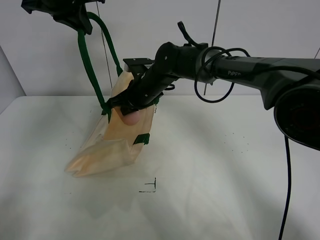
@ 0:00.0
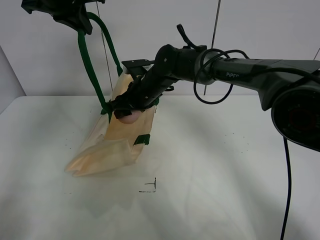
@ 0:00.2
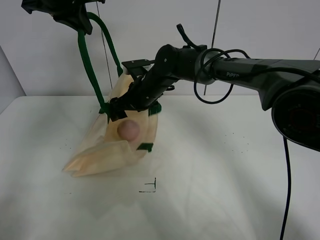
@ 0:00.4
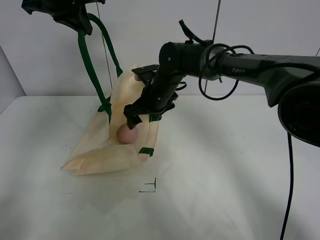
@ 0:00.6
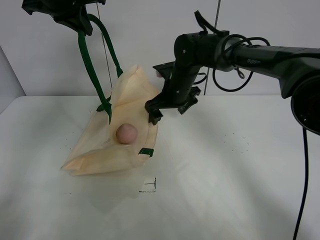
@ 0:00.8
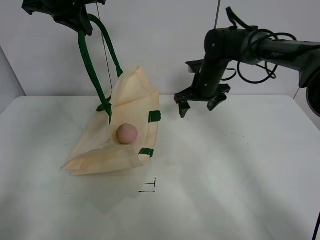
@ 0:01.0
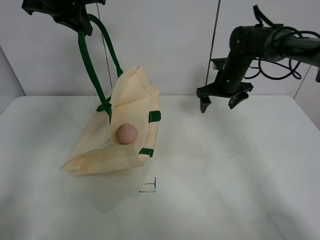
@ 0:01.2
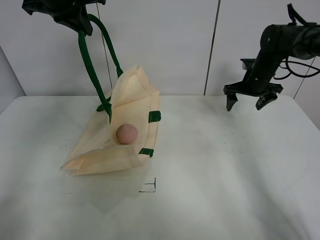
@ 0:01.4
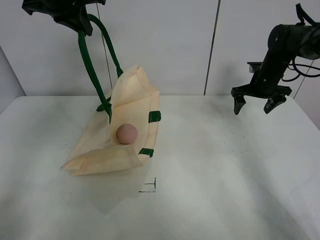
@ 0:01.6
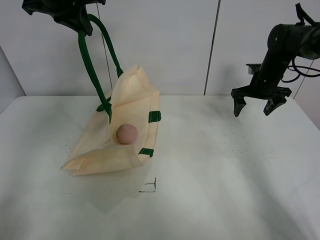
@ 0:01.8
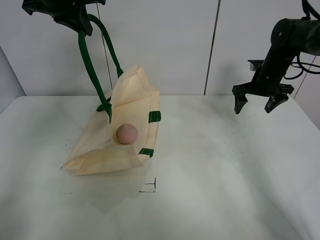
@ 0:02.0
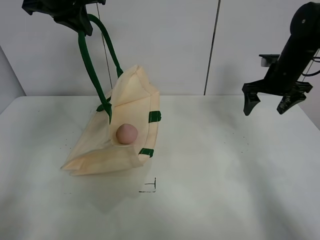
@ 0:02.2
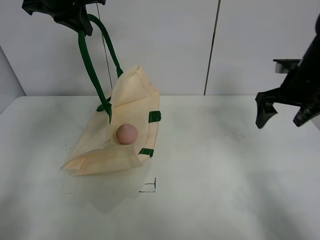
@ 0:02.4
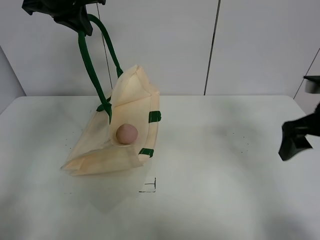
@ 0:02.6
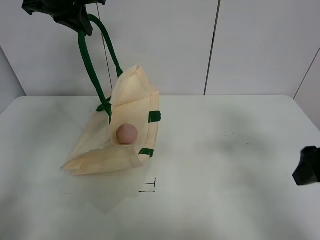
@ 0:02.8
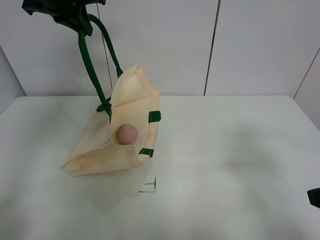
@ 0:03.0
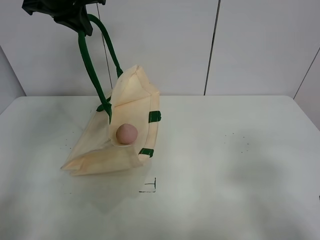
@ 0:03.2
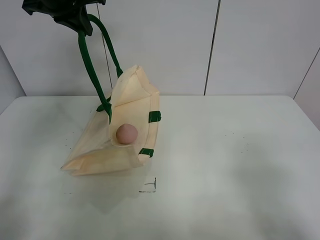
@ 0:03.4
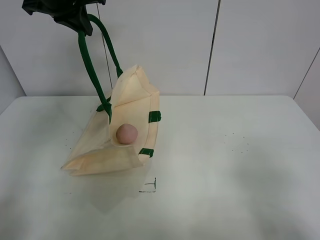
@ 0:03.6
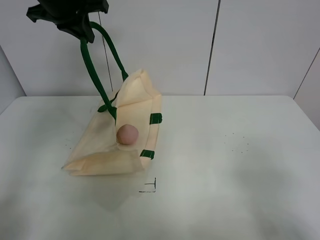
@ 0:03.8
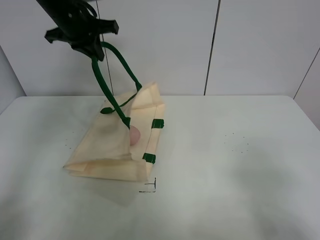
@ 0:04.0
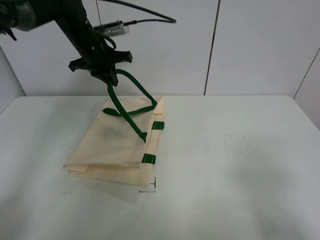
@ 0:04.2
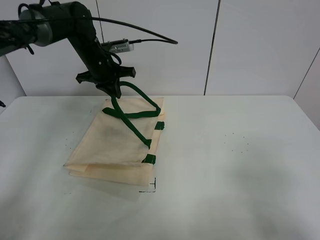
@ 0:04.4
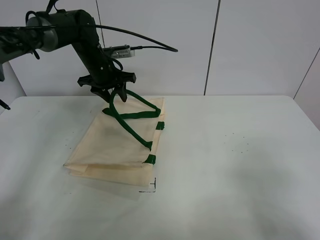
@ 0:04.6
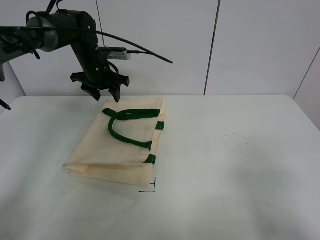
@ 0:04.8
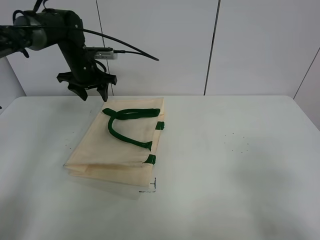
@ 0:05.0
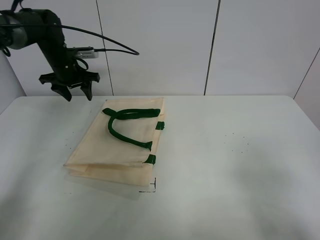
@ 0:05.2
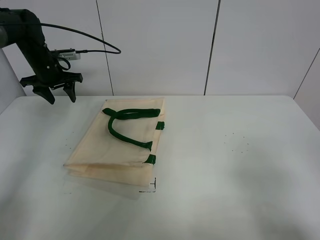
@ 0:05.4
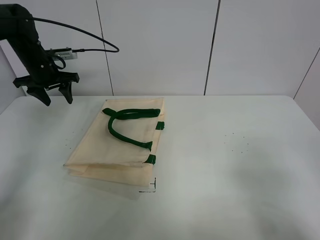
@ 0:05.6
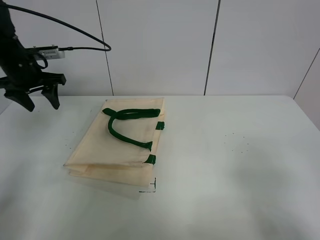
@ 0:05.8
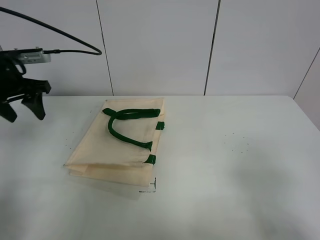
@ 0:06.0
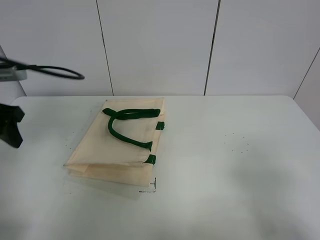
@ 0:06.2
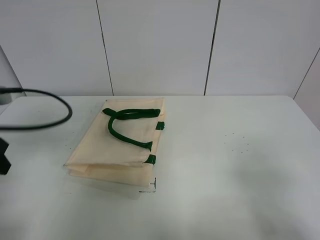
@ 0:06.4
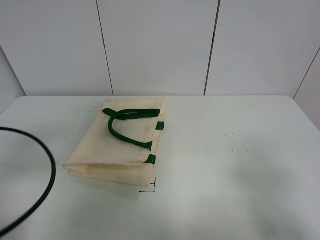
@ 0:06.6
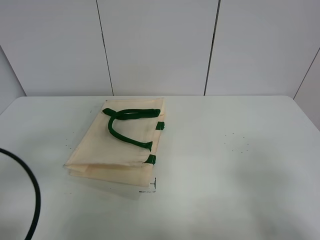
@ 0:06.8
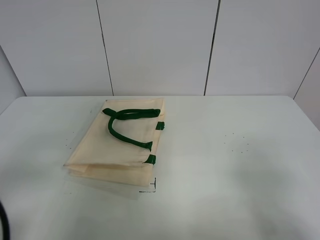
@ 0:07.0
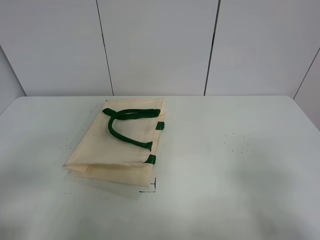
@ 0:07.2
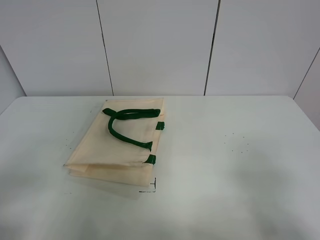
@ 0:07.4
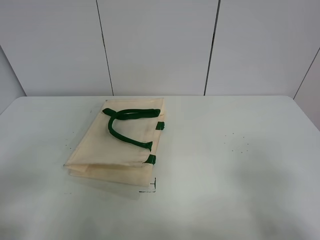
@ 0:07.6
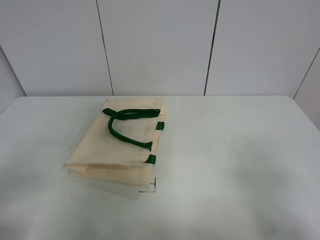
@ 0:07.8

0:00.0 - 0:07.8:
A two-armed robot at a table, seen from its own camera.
Task of the whole recording: open the white linen bag and put the peach in the bag.
Step, 0:00.8 - 0:04.8: Put down the handbag with left gripper.
0:00.0 - 0:01.6: The right gripper moves to the right, approximately 30 cm, and opens its fingers.
0:01.6 - 0:03.2: The right gripper travels backward by roughly 40 cm.
0:03.2 - 0:04.6: The left gripper shifts roughly 20 cm downward and forward, and opens.
0:04.6 - 0:06.2: The left gripper moves backward and to the left, some 30 cm.
0:06.2 - 0:07.8: The left gripper goes some 20 cm backward.
